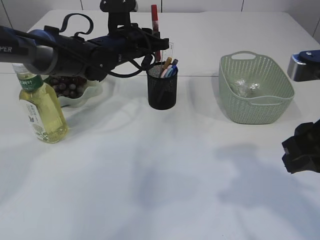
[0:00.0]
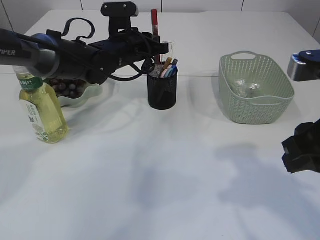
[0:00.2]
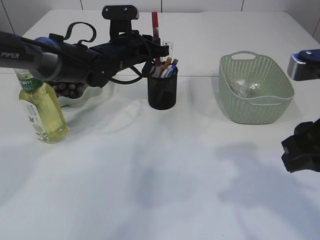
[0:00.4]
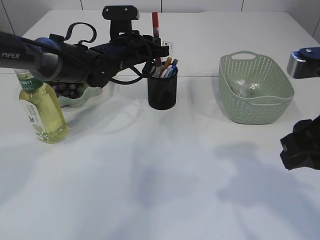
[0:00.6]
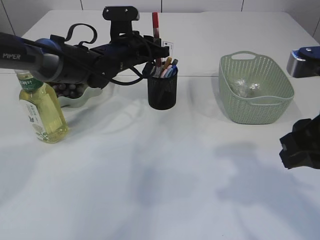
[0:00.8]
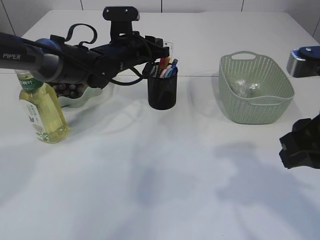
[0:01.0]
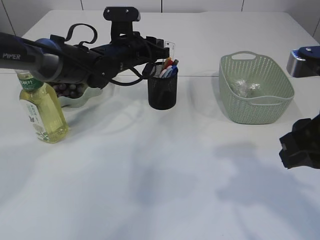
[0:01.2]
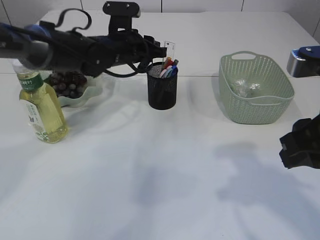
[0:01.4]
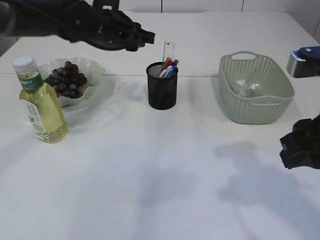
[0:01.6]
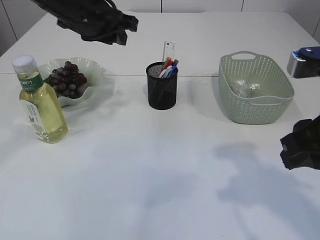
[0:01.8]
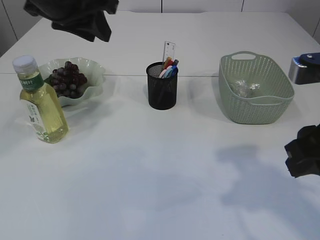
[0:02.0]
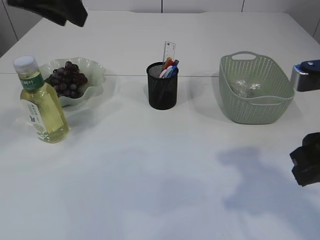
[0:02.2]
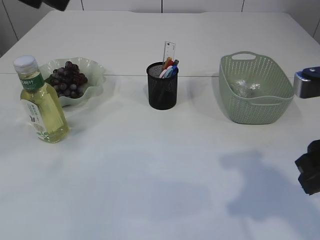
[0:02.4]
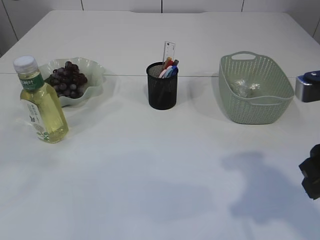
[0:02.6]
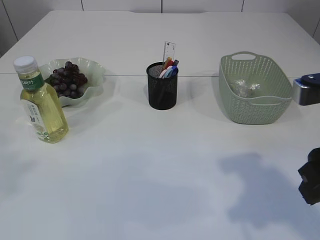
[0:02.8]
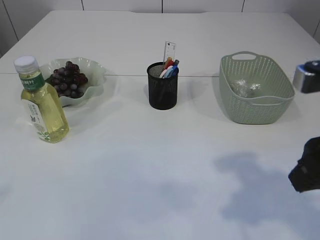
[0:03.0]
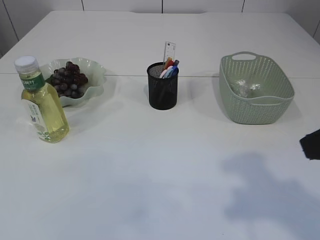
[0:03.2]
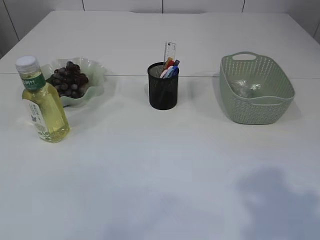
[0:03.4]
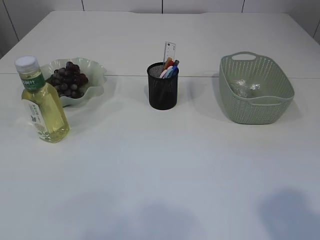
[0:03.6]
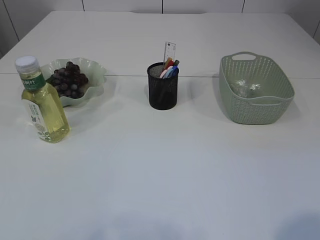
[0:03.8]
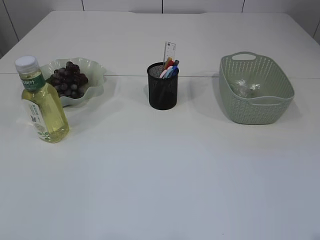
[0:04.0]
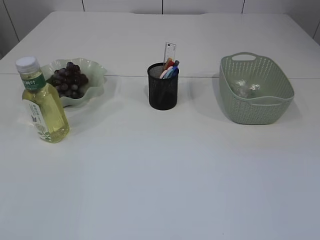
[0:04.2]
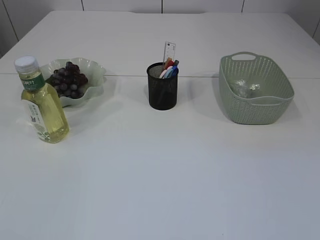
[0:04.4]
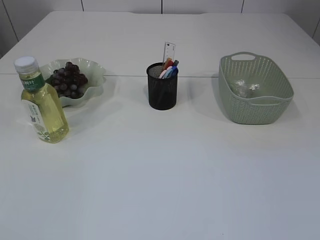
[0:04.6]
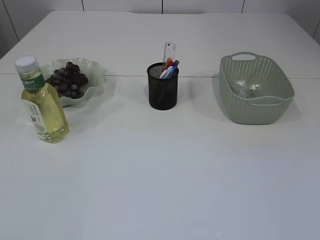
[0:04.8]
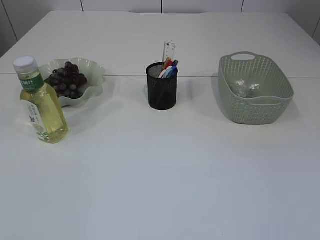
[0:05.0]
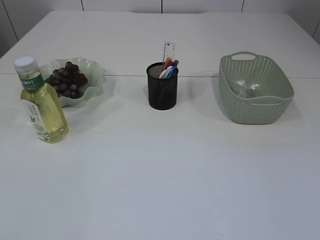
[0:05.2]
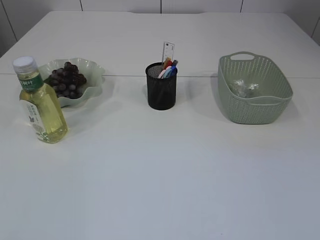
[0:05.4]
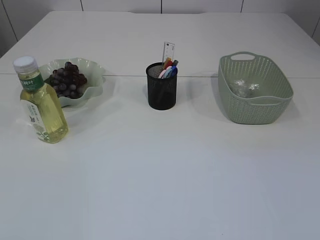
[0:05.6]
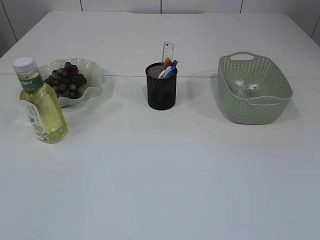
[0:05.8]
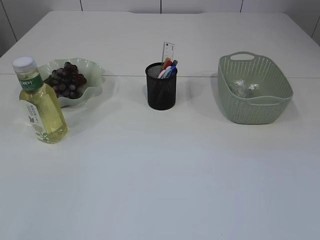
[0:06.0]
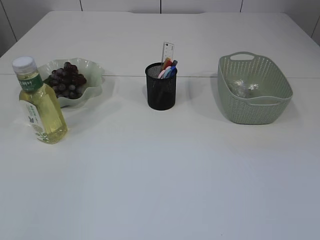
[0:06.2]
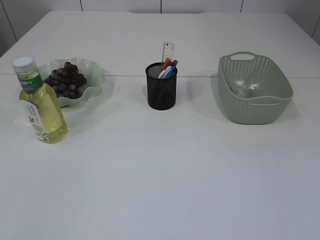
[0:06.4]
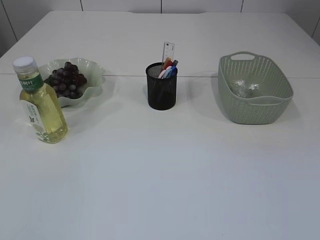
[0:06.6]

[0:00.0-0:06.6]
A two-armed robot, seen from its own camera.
Step, 0:00.0 to 0:01.8: place the red glue into the pen holder.
0:00.0 to 0:01.6: The left gripper changes place by some 5 cm.
0:01.6 to 0:03.2: The left gripper moves backward, to the left and upward, roughly 50 cm. The right gripper ends up approximately 5 cm from where it was.
0:03.2 to 0:05.0: The right gripper shifts about 20 cm backward and to the right. Meanwhile the left gripper goes about 15 cm downward and backward.

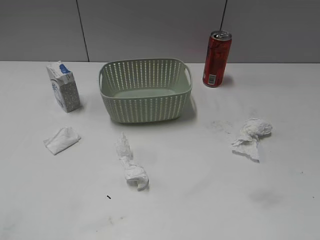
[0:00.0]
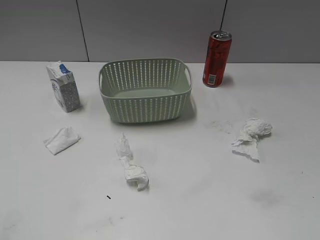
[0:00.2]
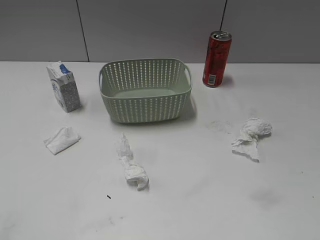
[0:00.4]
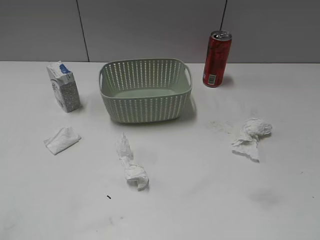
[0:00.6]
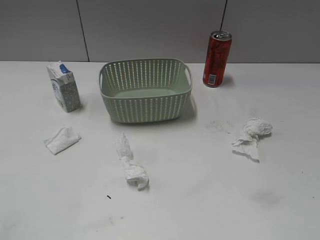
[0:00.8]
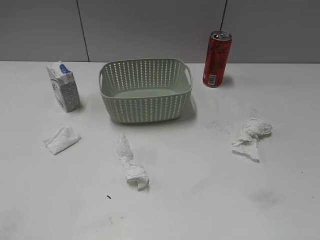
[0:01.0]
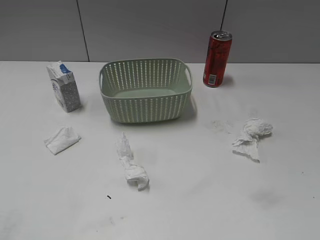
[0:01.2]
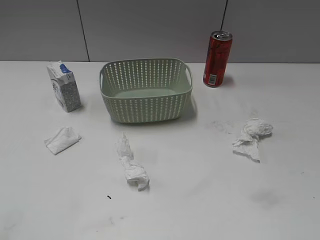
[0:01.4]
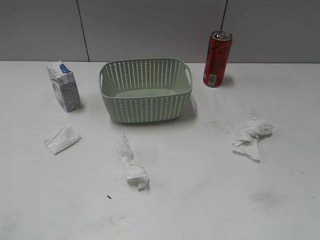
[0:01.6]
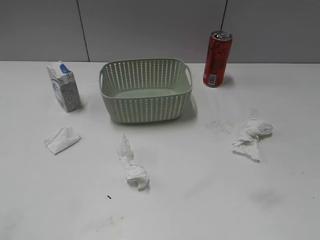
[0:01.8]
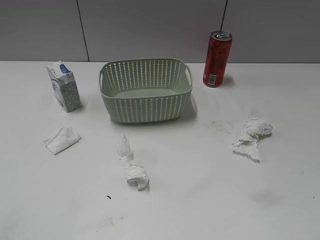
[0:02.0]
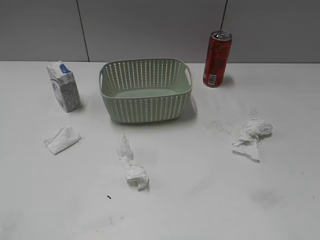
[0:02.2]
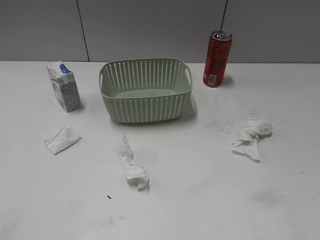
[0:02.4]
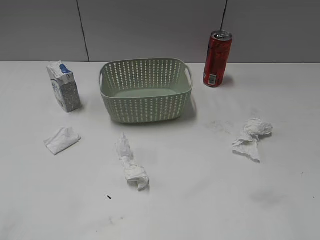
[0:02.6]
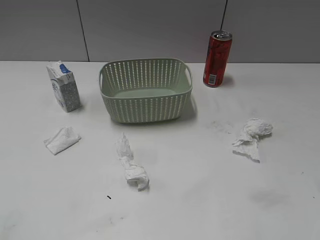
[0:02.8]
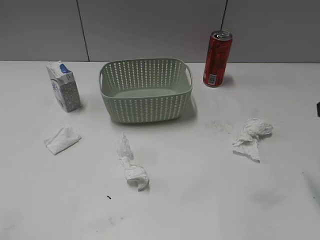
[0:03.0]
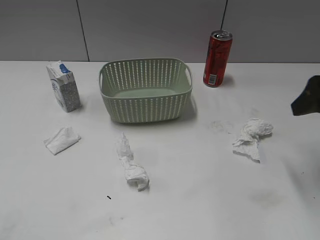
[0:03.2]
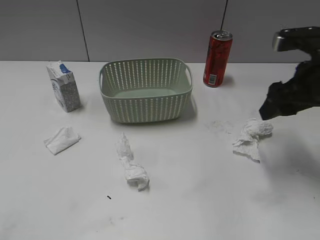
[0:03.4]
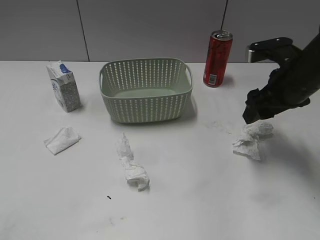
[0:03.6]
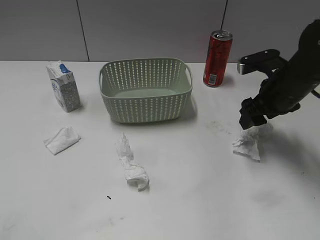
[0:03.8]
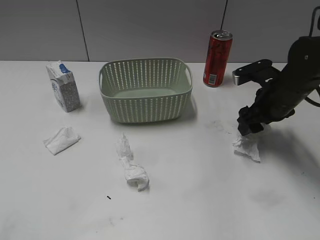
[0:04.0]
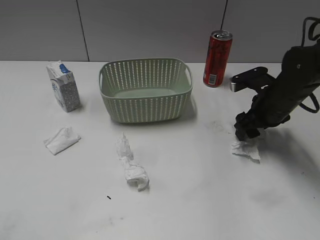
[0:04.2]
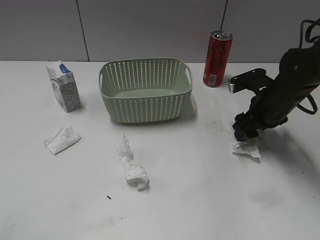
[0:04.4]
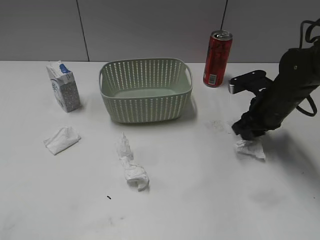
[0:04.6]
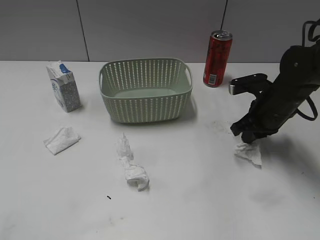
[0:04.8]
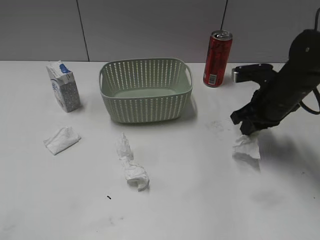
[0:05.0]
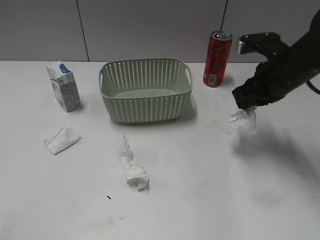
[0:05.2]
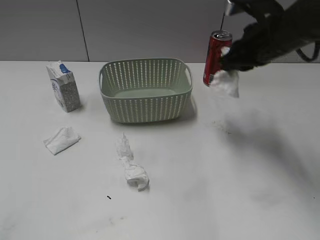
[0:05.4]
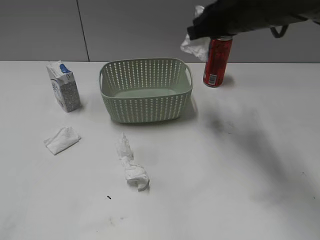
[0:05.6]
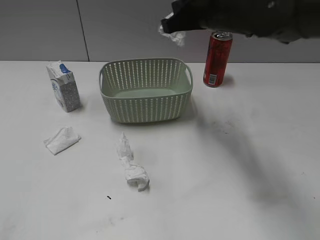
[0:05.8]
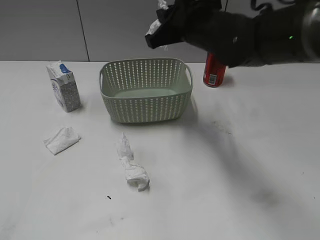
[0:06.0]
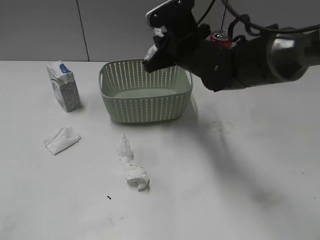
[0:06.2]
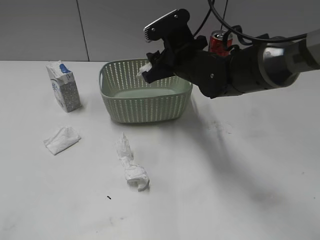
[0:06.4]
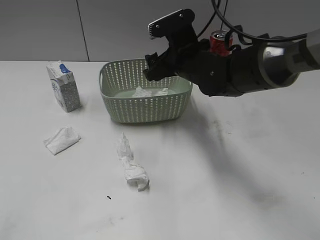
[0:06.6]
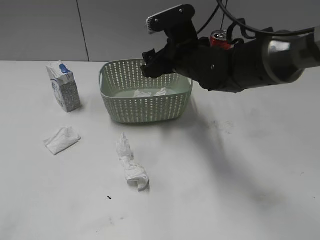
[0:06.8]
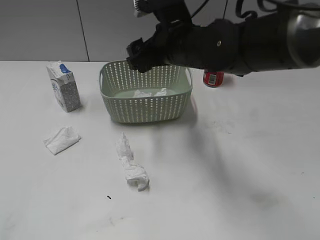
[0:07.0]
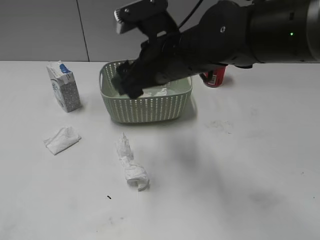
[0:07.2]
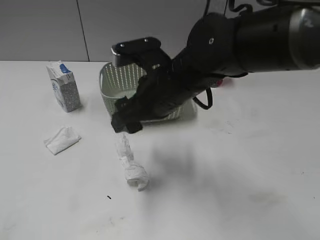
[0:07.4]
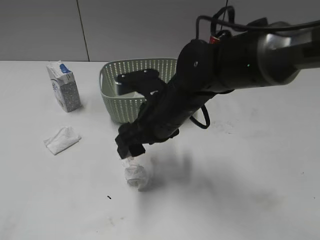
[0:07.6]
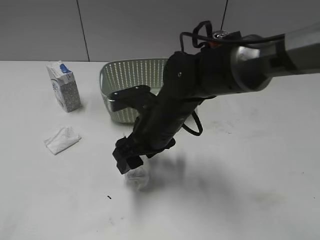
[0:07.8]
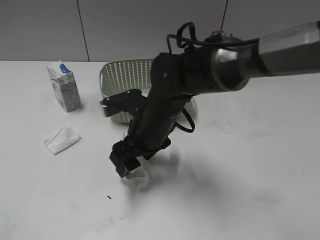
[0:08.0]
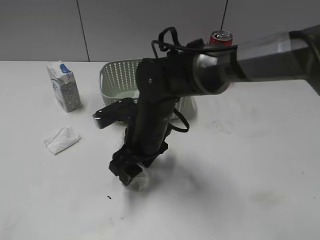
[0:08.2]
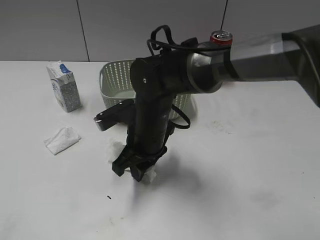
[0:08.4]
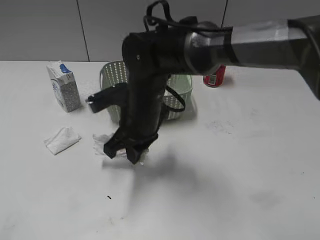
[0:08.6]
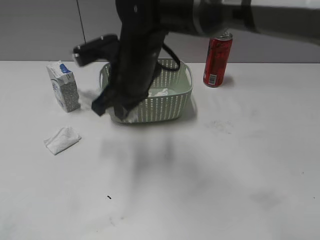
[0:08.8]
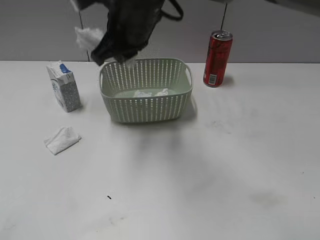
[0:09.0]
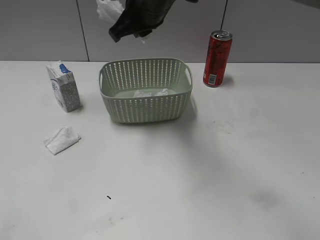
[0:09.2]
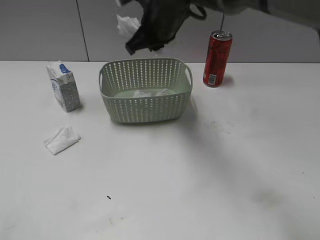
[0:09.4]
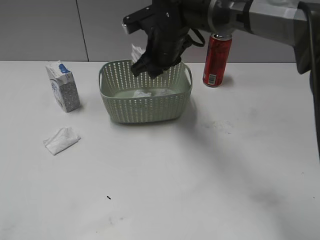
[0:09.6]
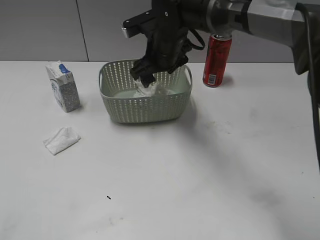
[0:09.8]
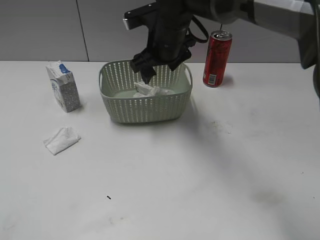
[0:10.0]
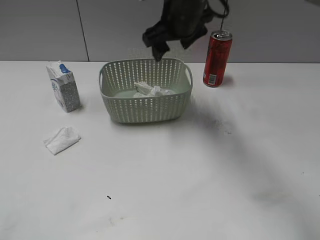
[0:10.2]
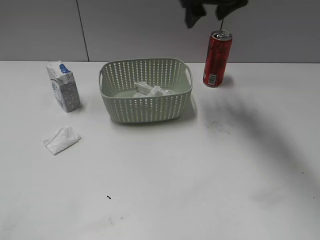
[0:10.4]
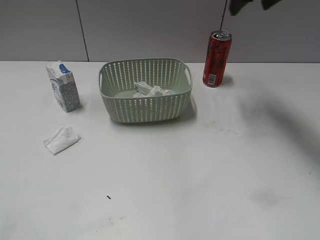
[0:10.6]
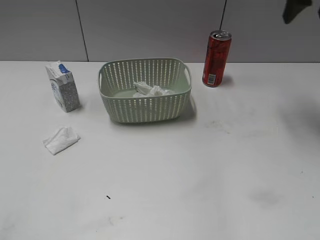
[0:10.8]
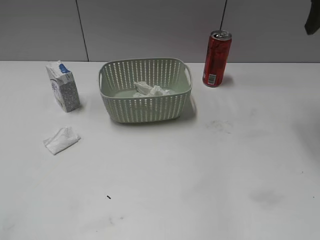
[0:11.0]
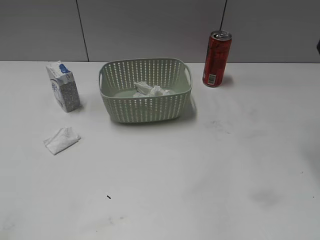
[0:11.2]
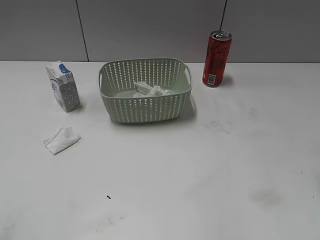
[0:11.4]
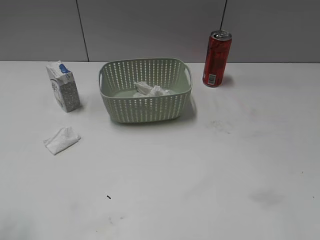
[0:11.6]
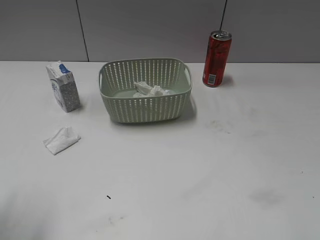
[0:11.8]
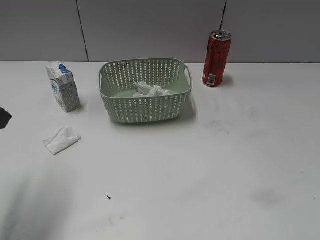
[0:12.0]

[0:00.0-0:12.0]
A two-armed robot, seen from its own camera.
Step, 0:02.8 to 0:04.6: Grasp the waste paper with right gripper.
Step, 0:04.8 to 0:06.6: Place the waste paper in the basket with right gripper.
Step, 0:06.8 to 0:08.6: Grasp the waste paper with right gripper.
Step, 0:08.8 to 0:10.0: Place the waste paper in the basket with right gripper.
0:03.0 to 0:04.4: The right gripper heads downward, forward and to the left, covering approximately 25 cm.
0:04.4 to 0:06.0: The right gripper travels to the left and upward by some 20 cm, and closes up.
0:06.0 to 0:07.6: The right gripper shifts about 15 cm downward, backward and to the left, and opens up.
0:07.6 to 0:09.0: The right gripper heads upward, to the left and forward, covering roughly 10 cm, and closes up.
0:09.0 to 0:10.4: The right gripper moves to the right and forward, about 15 cm, and opens up.
0:10.4 to 0:12.0: The right gripper goes approximately 40 cm backward and to the right; the left gripper moves forward, about 20 cm.

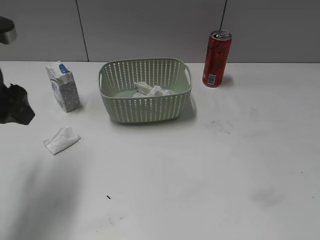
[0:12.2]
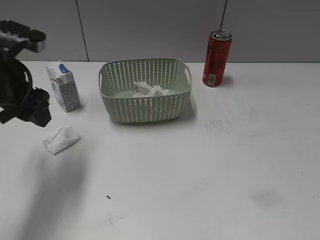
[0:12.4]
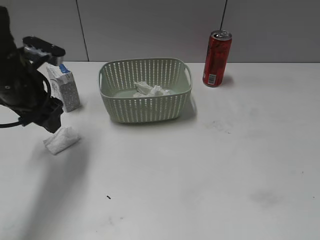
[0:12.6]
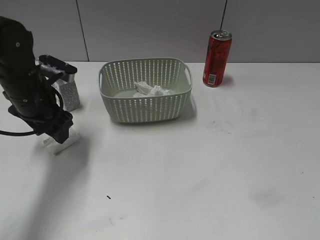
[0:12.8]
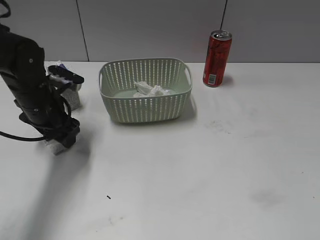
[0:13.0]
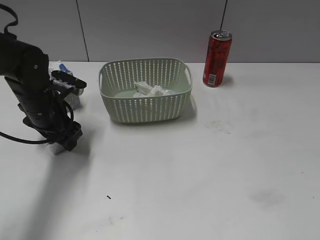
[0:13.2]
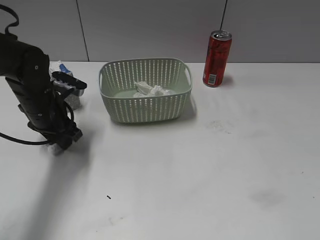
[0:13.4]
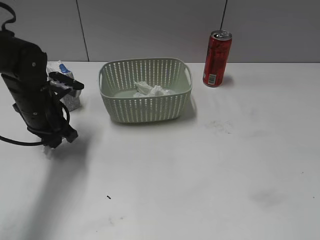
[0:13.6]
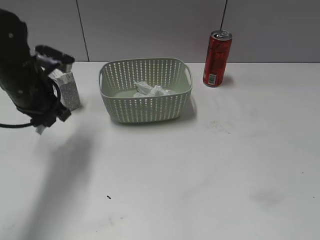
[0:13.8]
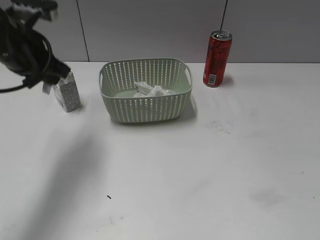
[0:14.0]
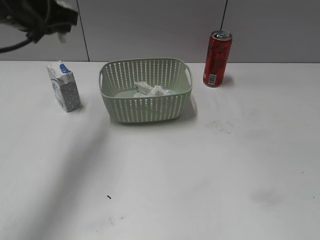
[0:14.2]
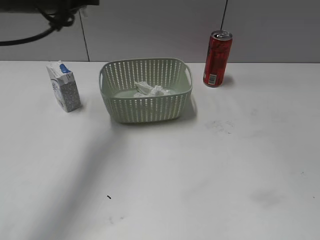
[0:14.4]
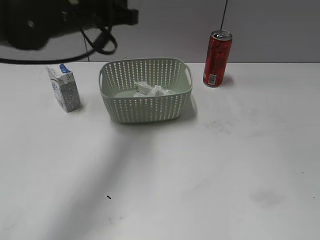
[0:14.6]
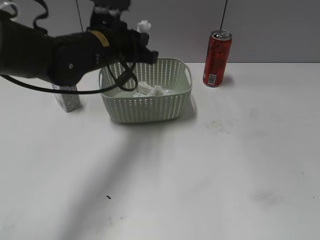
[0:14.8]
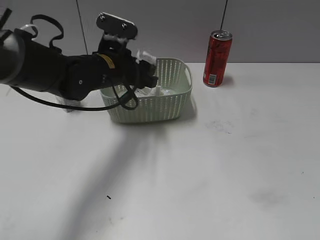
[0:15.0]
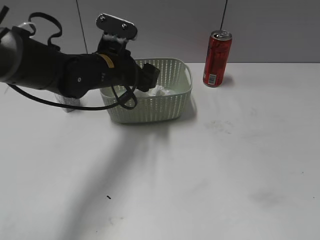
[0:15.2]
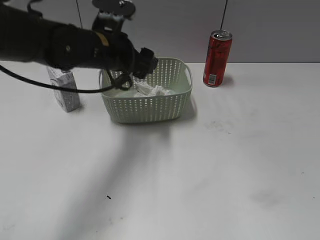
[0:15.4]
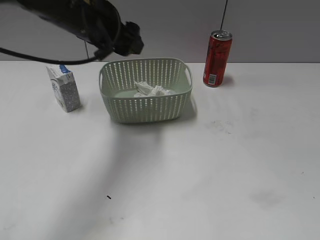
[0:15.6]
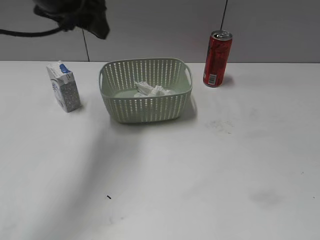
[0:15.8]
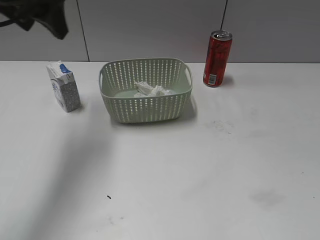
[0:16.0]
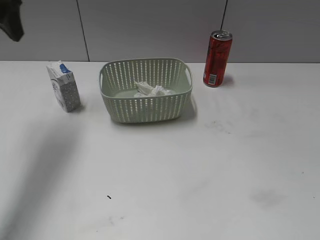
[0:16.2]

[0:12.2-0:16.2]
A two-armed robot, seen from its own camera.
Step, 0:13.8 to 0:15.4: Place the waste paper in the basket with left gripper.
0:12.2 to 0:13.6: The left gripper is displaced downward and forward by approximately 20 cm, and closes its fingers.
0:13.6 to 0:14.8: The left gripper moves upward and to the right, some 15 cm.
0:14.8 to 0:16.2: The left gripper is displaced to the left and upward by about 20 cm, and opens up.
